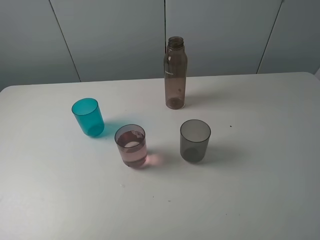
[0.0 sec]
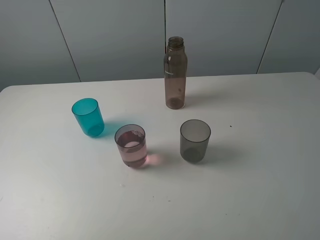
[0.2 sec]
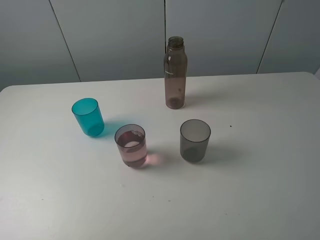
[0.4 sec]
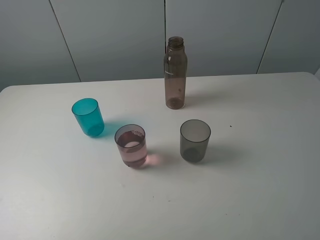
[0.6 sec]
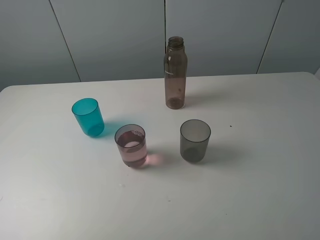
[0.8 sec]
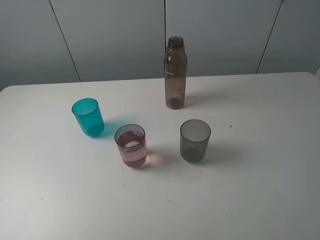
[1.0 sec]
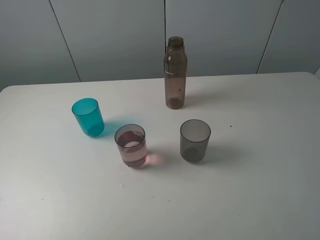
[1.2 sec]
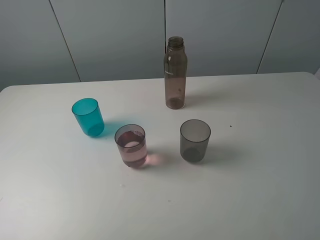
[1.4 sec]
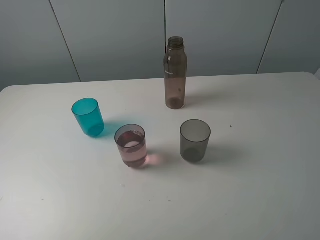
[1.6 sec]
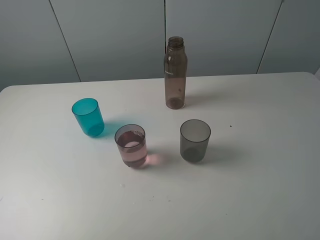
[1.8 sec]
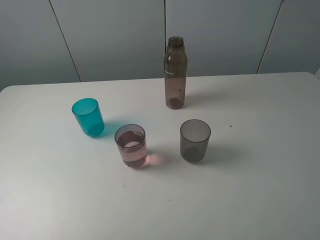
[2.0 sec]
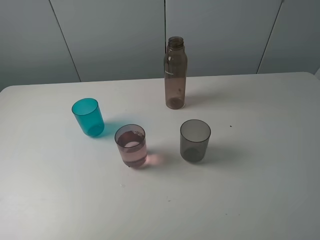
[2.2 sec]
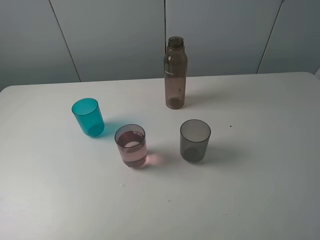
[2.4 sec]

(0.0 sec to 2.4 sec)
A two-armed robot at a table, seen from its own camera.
Task of the whole recording: pick up the bottle filled with water and pour water into the middle cup of the three cups.
1.2 sec - 2.4 sec: Both grippers stay put.
